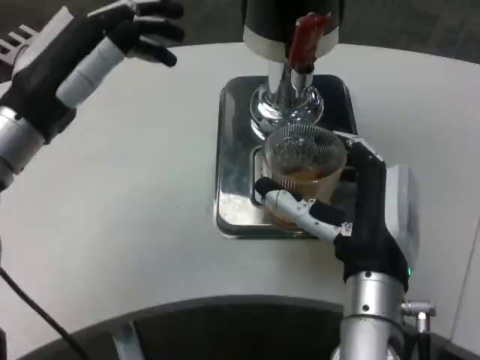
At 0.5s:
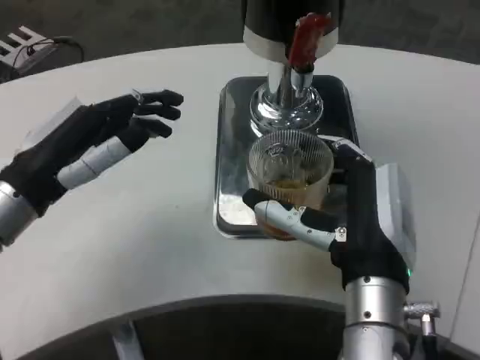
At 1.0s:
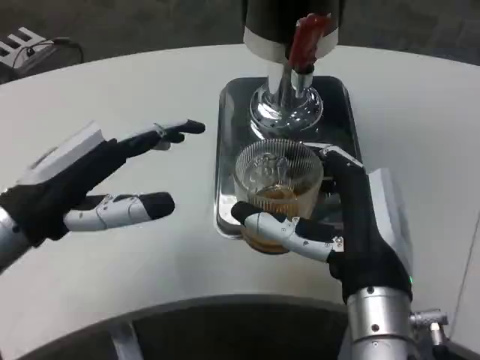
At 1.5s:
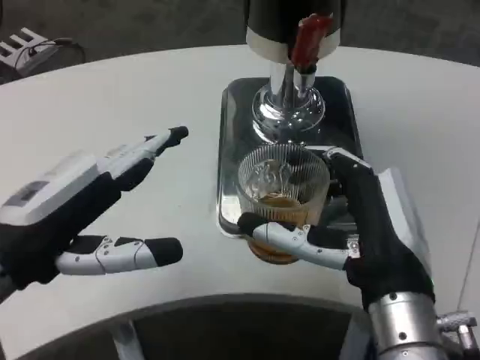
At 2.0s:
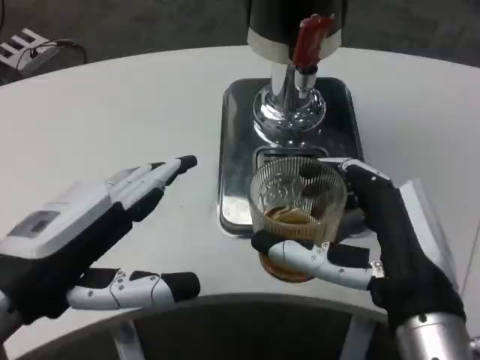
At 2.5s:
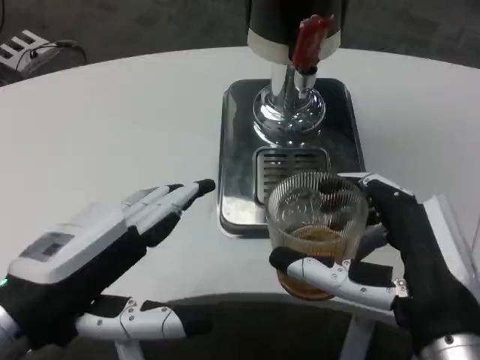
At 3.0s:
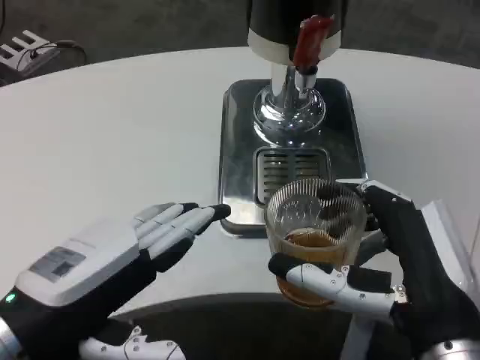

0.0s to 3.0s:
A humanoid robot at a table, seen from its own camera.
Task of the whole recording: Grasp the cup under the faucet to collect the drink, then remove the cup.
0.0s to 1.5s: The left hand travels backward and downward by roughly 10 cm; the right hand shifts by approximately 5 cm.
1.5s to 3.0s: The right hand changes place by about 5 cm; the left hand shifts by about 5 cm.

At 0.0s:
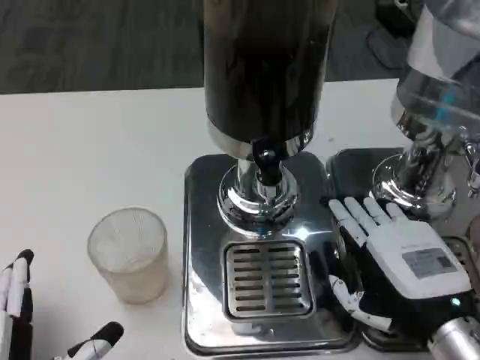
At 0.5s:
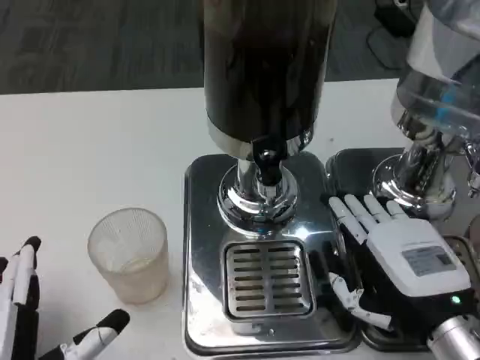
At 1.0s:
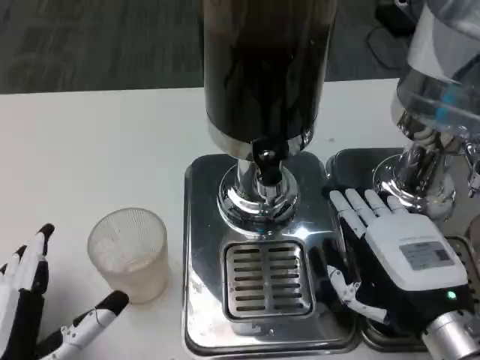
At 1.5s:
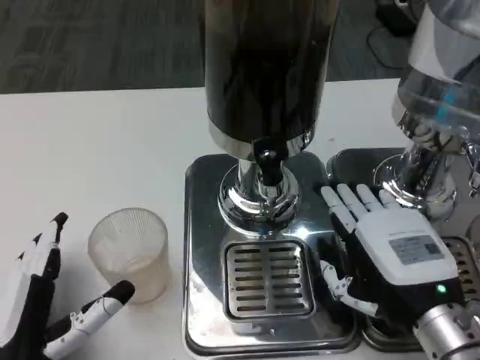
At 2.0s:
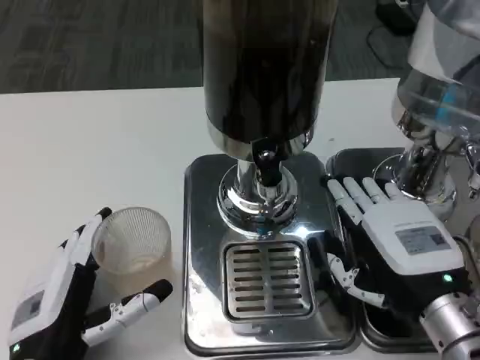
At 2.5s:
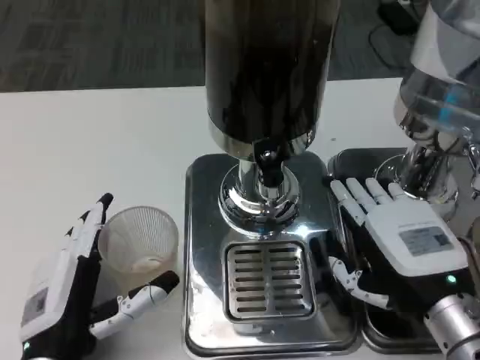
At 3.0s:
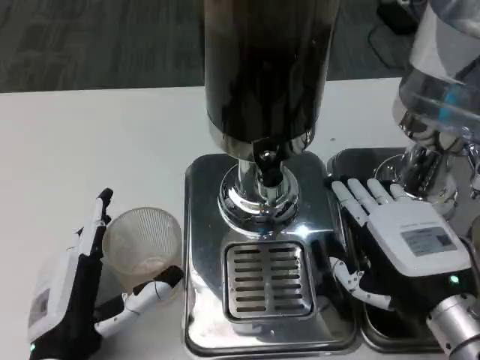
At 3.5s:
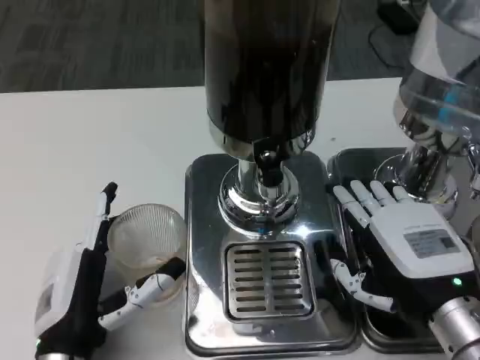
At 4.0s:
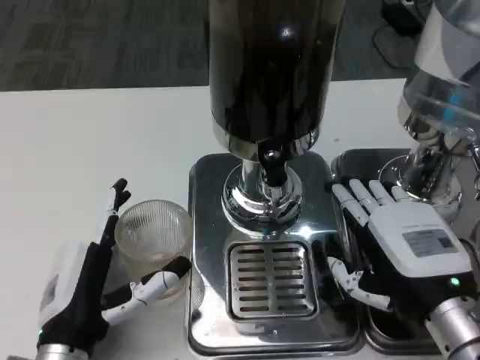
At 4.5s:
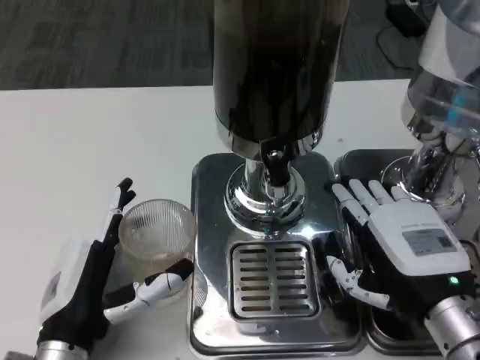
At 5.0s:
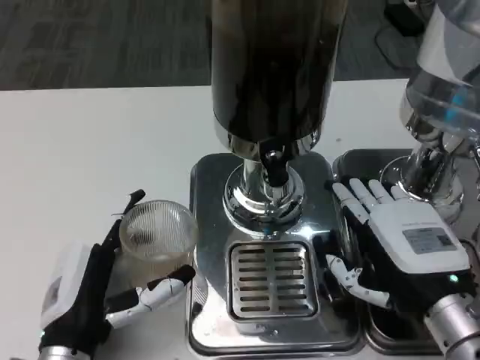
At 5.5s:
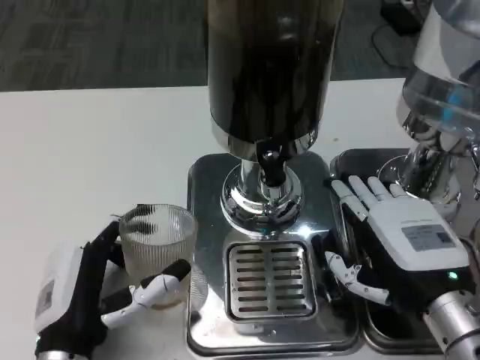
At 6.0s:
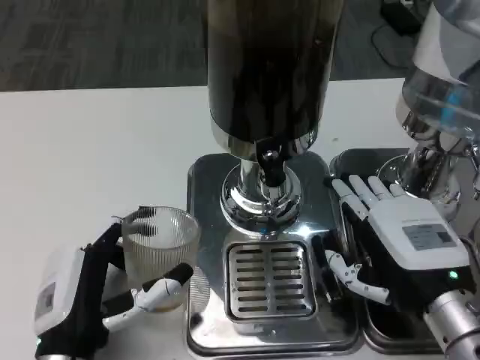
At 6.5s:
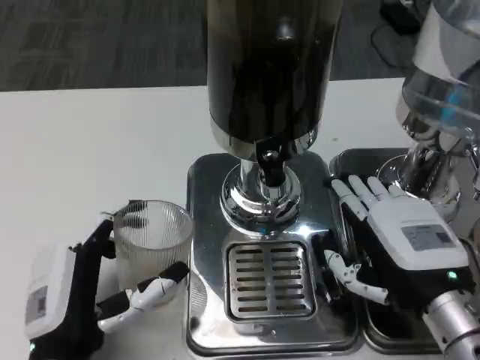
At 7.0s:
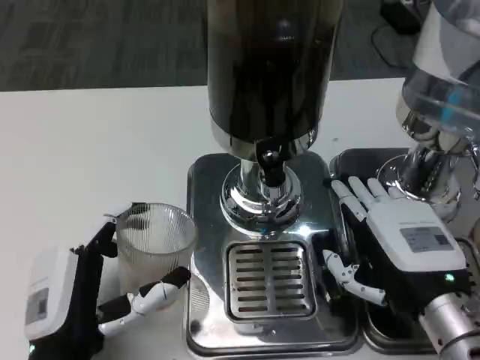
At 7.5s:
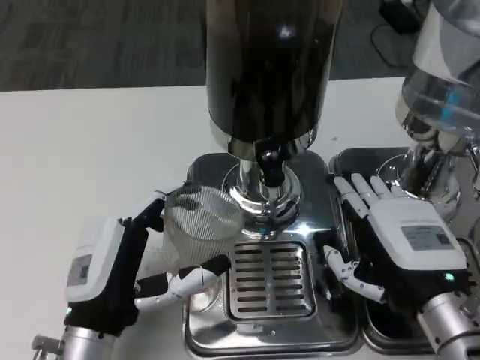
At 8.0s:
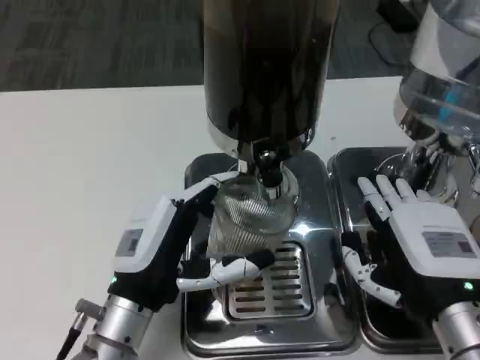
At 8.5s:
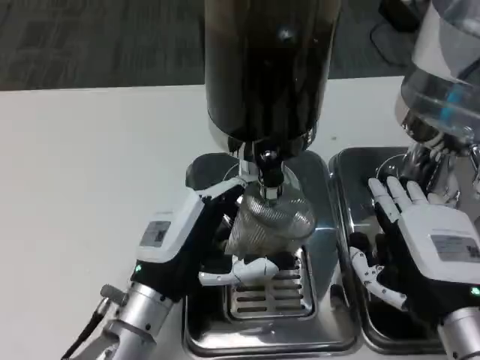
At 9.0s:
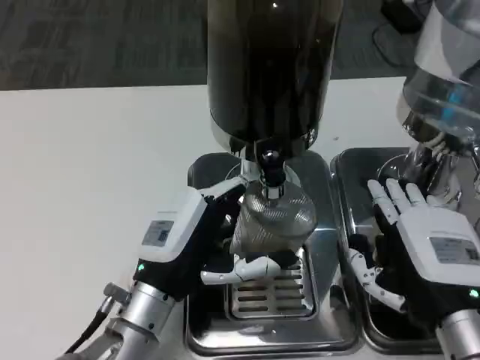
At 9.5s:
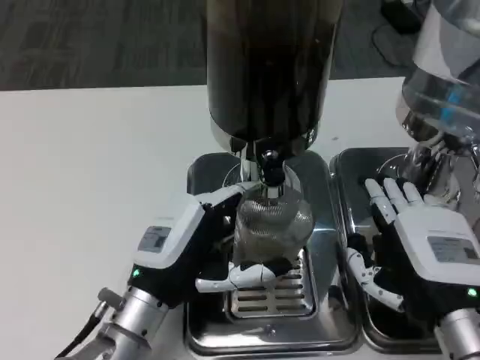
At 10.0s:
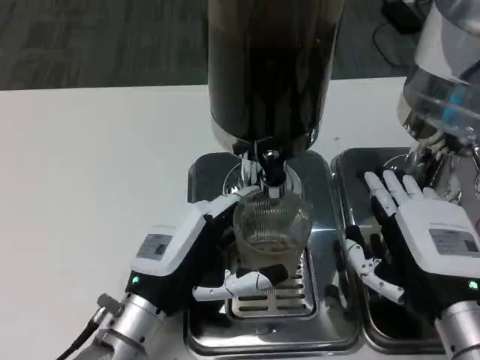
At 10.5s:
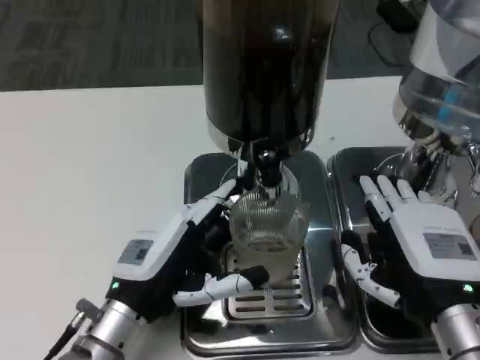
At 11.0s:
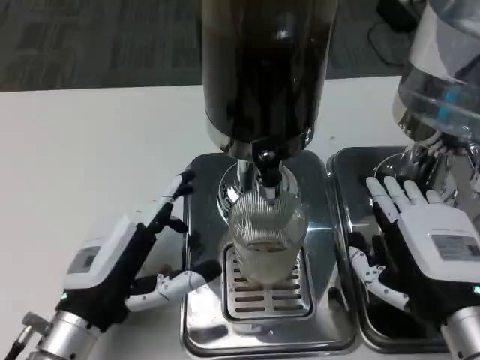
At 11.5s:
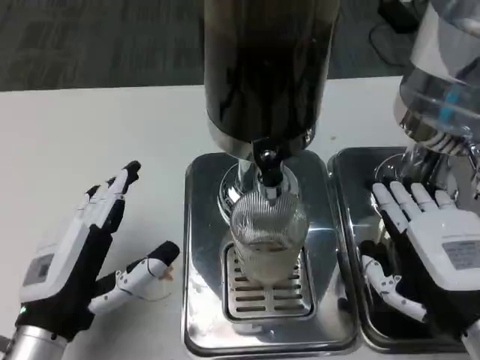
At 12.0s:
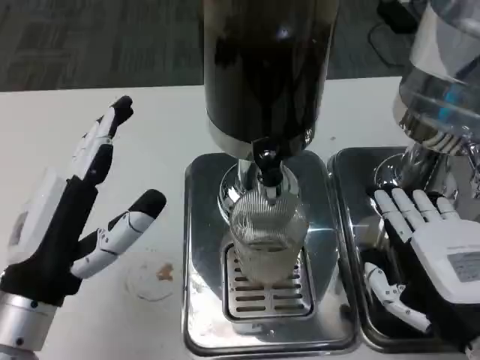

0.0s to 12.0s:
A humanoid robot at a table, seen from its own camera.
Task of the whole recording: Grasp the cup under the faucet to collect the drink, then remove the cup.
0.0s to 2.0s: The left hand heads forward, covering about 5 cm.
4.0s to 6.0s: There are only small adjustments of the hands.
6.0s to 8.0s: The left hand shifts approximately 5 cm forward.
10.0s to 12.0s: The left hand is displaced upward and to the left by some 10 cm.

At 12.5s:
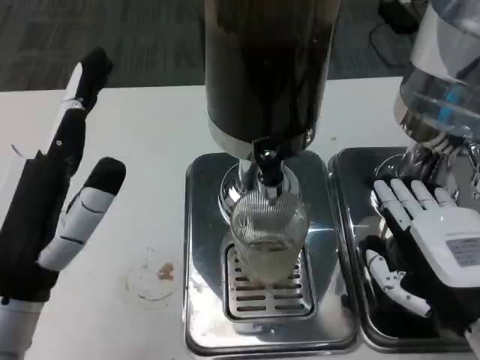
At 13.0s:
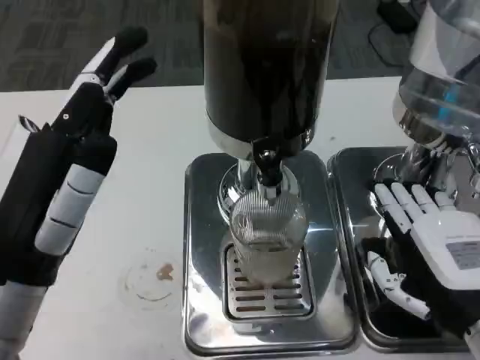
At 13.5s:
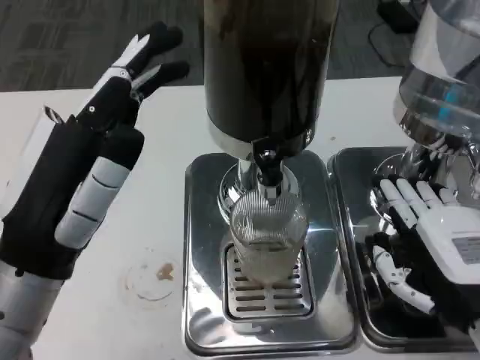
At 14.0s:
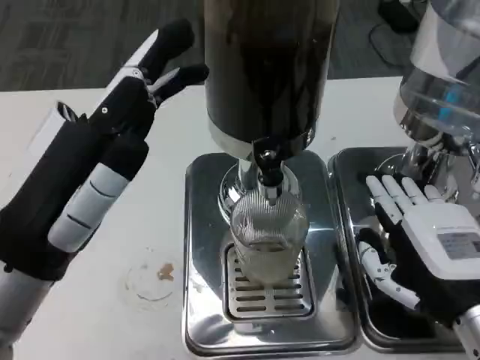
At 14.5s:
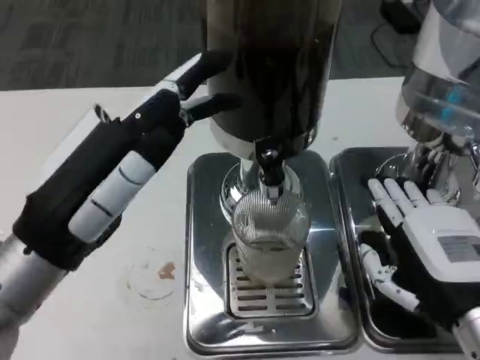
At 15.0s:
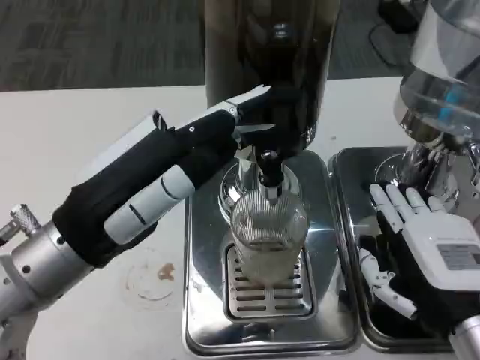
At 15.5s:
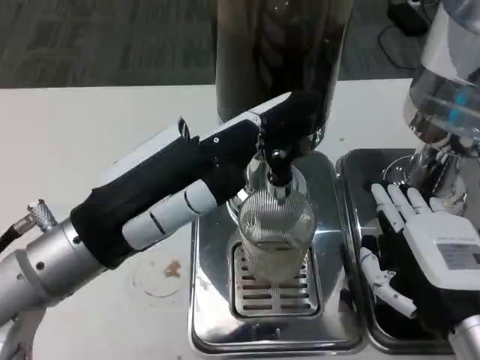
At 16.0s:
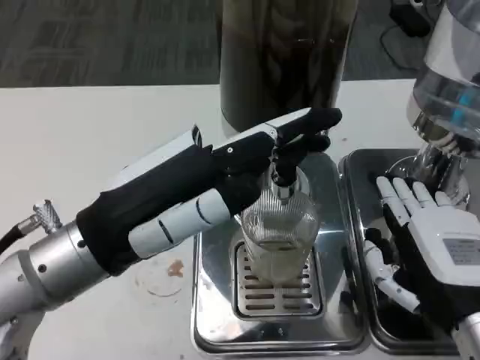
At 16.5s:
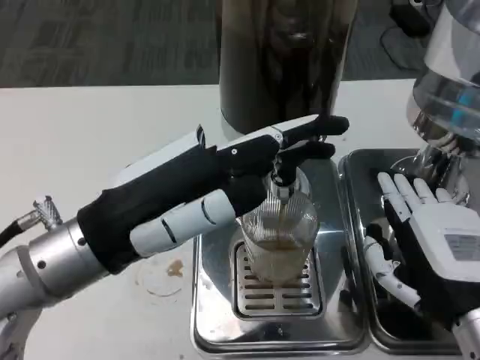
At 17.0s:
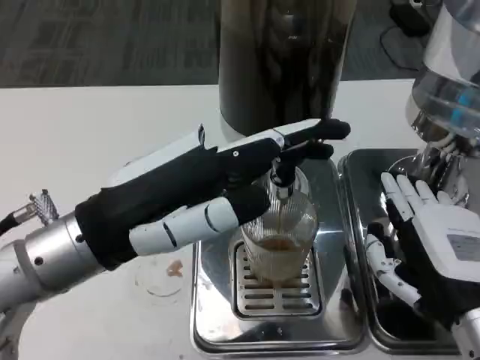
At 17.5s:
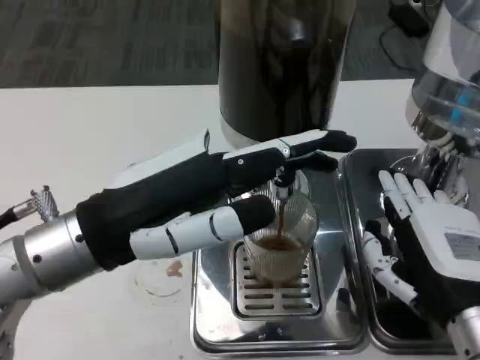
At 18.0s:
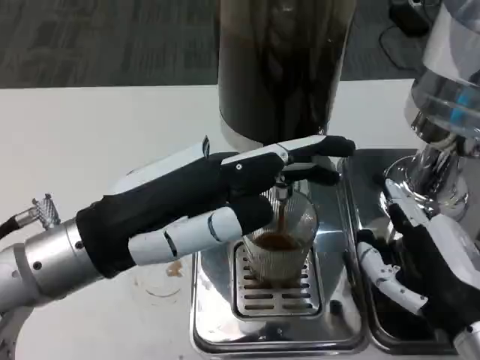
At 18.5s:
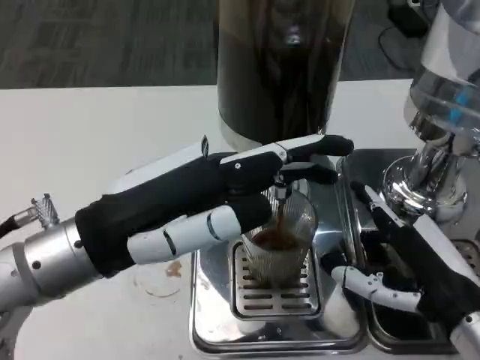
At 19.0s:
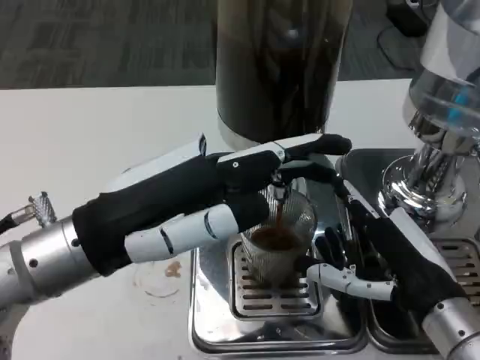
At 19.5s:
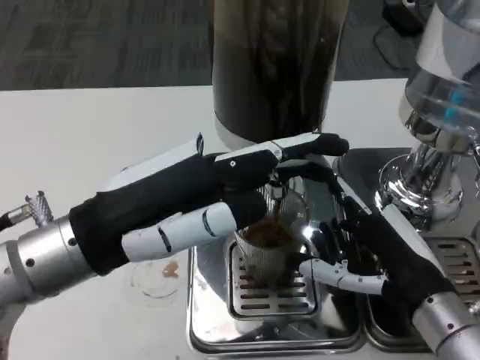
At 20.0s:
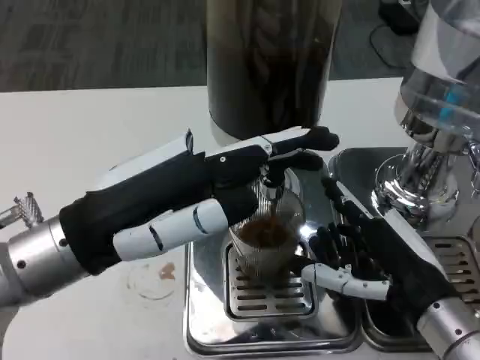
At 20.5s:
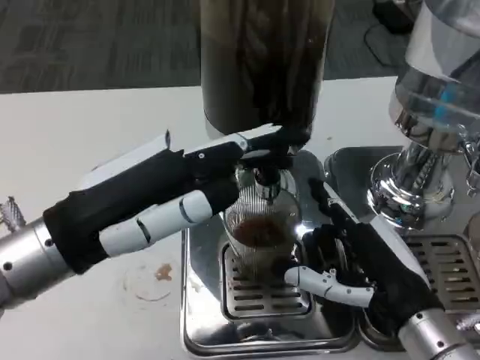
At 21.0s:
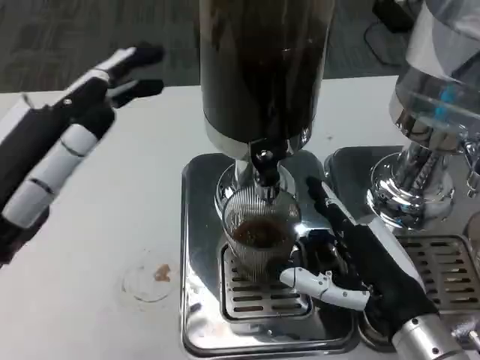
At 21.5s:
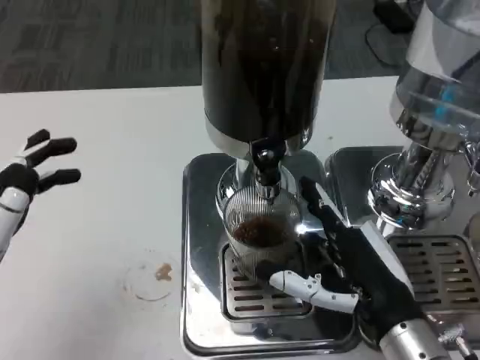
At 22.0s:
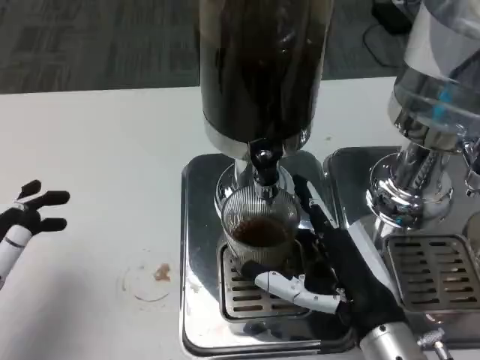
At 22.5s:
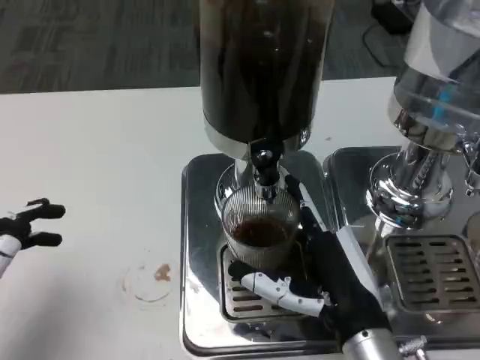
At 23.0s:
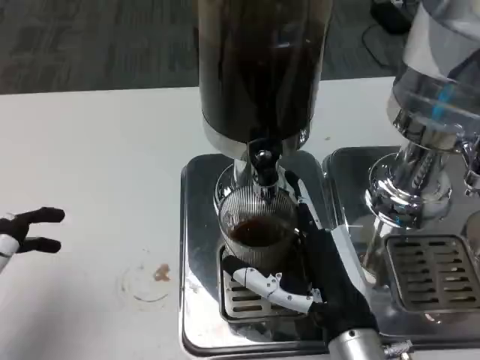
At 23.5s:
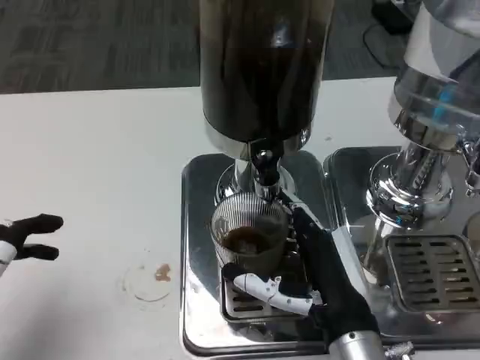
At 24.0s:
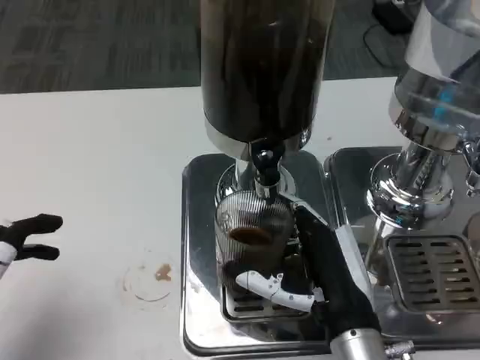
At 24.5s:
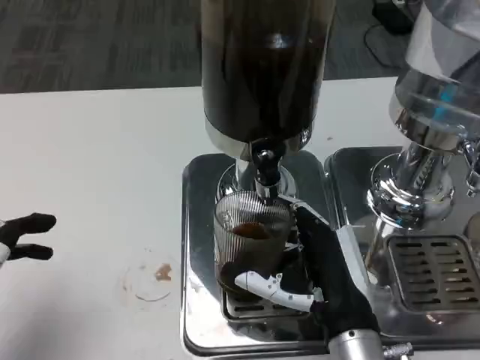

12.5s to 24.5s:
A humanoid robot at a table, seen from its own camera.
Task of the whole recording: Grasp the cup under the faucet to collect the drink, then remove the cup.
12.5s to 14.5s: The left hand shifts by approximately 5 cm.
20.5s to 22.5s: The right hand heads to the left, covering roughly 5 cm. The left hand goes some 15 cm to the left, backward and downward.
22.5s to 24.5s: The hands move only a little.
